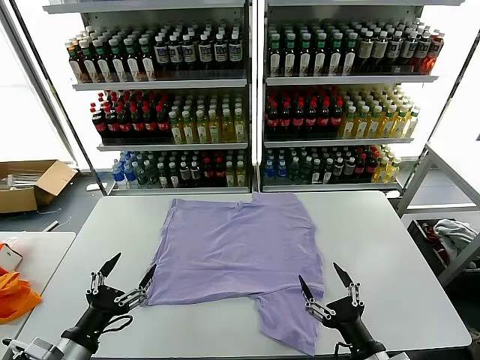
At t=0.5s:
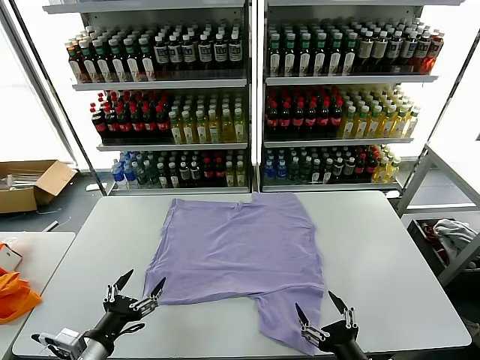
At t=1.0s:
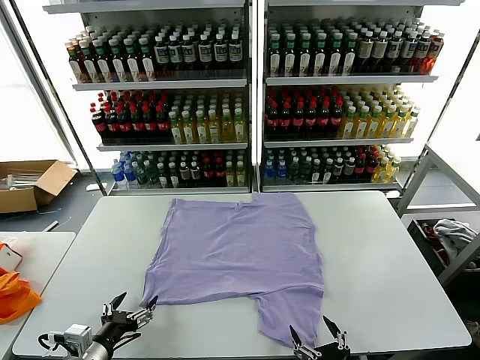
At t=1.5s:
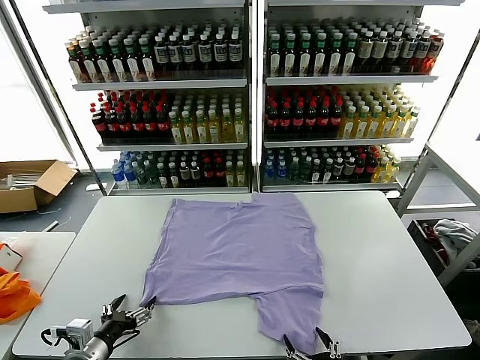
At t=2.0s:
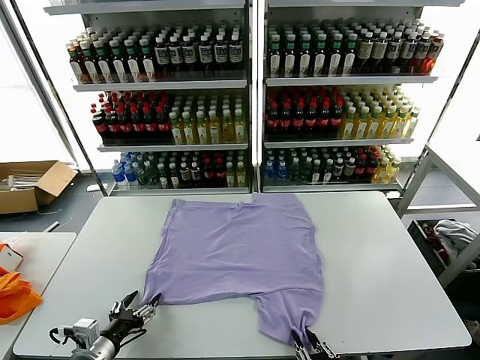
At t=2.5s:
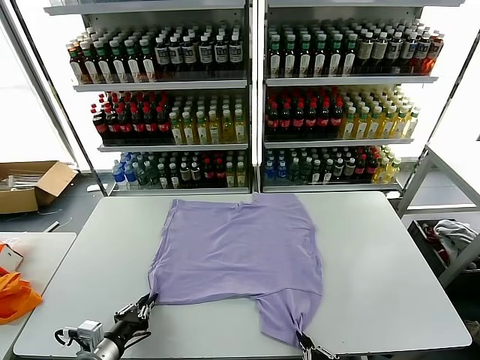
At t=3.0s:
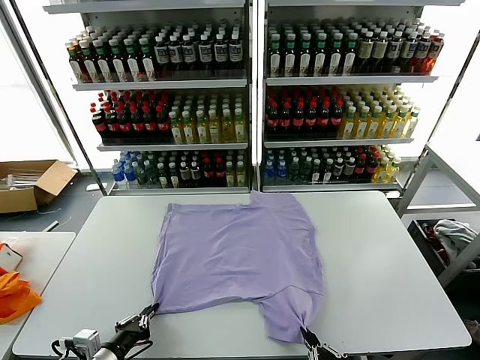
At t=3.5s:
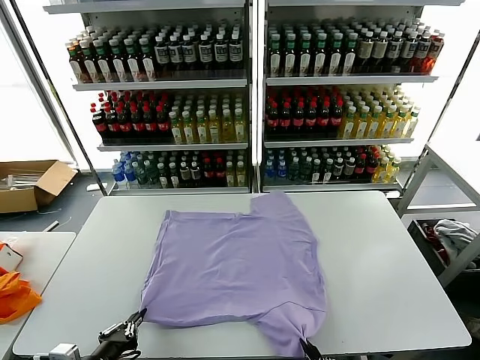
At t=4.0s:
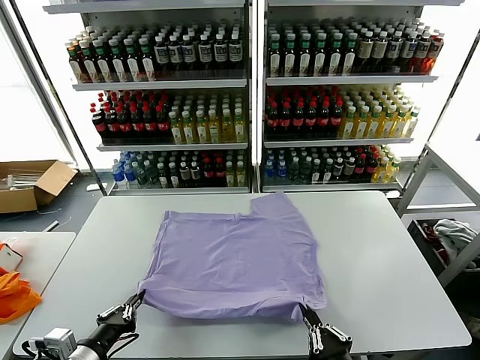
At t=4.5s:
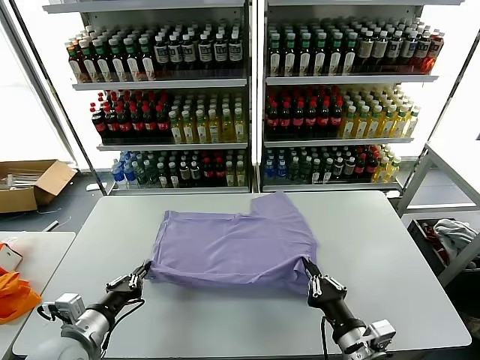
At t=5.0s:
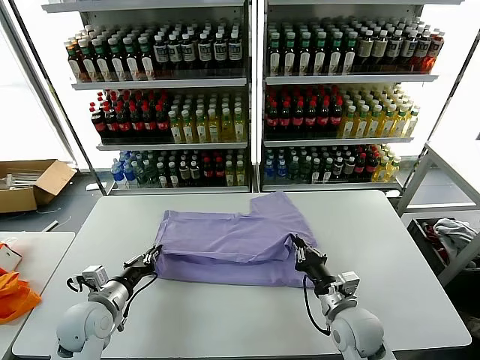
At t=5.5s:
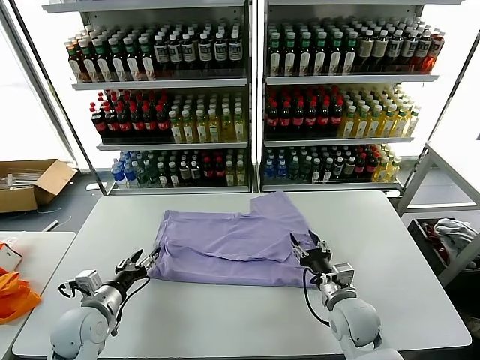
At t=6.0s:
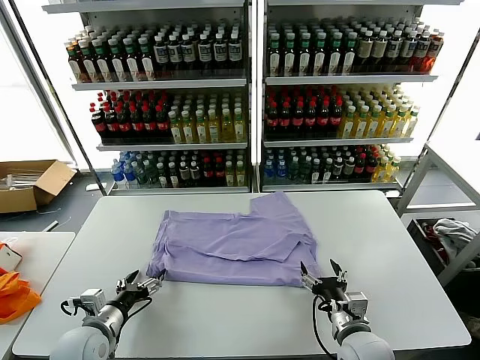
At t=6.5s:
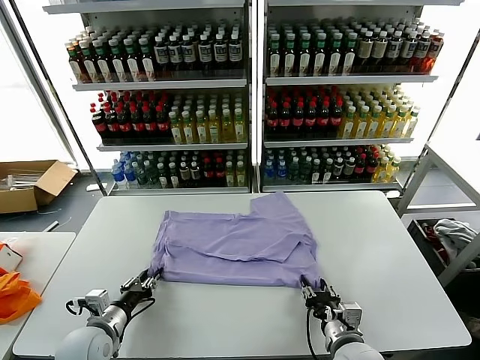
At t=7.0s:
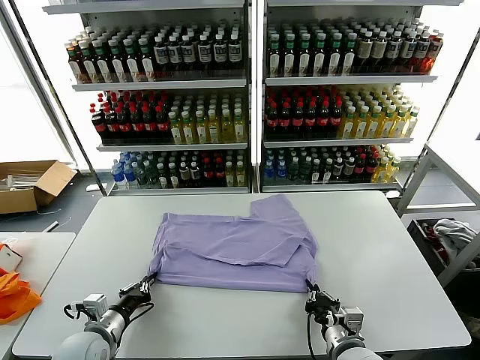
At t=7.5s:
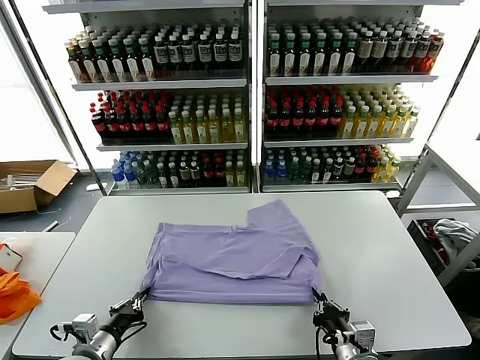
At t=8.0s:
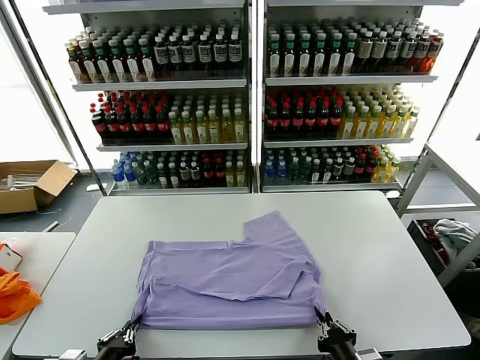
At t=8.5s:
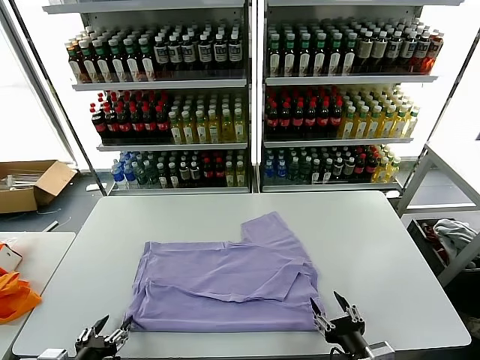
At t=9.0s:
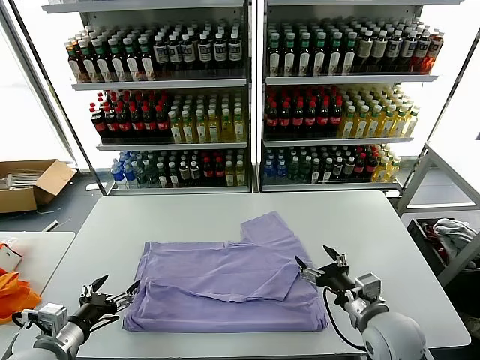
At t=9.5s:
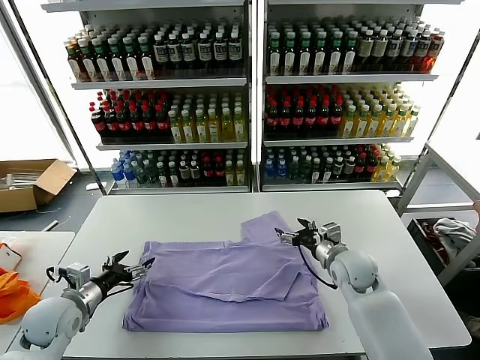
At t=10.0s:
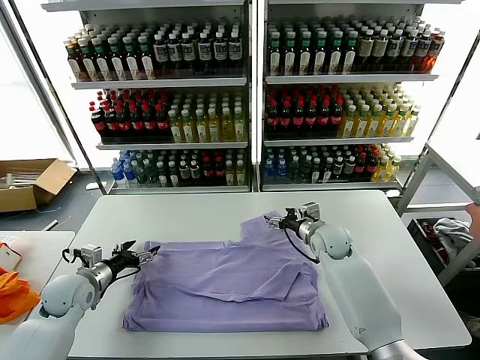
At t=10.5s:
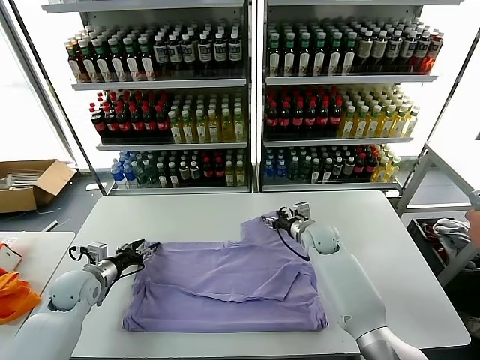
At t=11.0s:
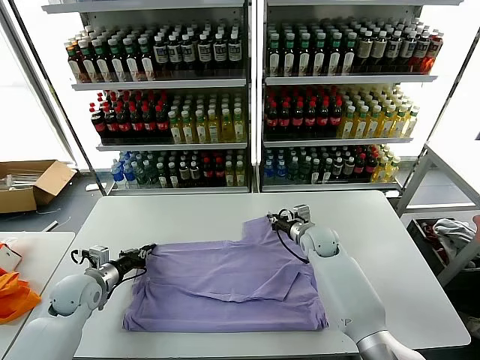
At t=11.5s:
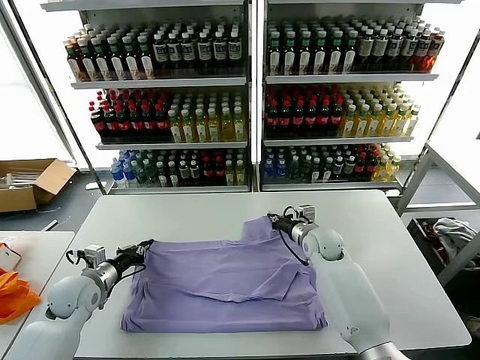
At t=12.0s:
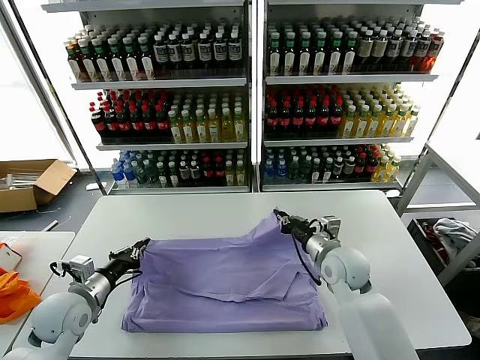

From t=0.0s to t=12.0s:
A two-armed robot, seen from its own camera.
Task of the whole recording: fold and organize the clothes.
Step, from t=0.0s to t=2.5s: use both grippers simultaneously to clamp the lower edge of the clothing fabric.
Step, from t=3.0s to t=5.0s: use both grippers to drag the lower edge of the fabric forward and fold it over the upper edge.
Step, from t=5.5s to t=8.5s: Drag the clothes downward with both gripper.
Step, from t=9.0s to t=11.0s: use both grippers simultaneously to clamp the upper edge of the clothing fabric.
From t=2.0s to t=4.0s: Both grippers travel together upward, approximately 5 cm. The left gripper closes up.
From t=4.0s to t=6.0s: Both grippers move forward and downward, roughly 15 cm. The right gripper opens its fingers; the left gripper opens up.
From t=6.0s to t=8.0s: The two grippers go roughly 10 cm backward. The right gripper closes up; the left gripper closes up.
From t=8.0s to t=10.0s: The right gripper is displaced forward by about 40 cm, and opens its fingers; the left gripper is displaced forward by some 25 cm, and opens its fingers.
From t=10.0s to t=12.0s: The right gripper goes some 10 cm backward, and closes its fingers, while the left gripper goes roughly 5 cm backward, and closes.

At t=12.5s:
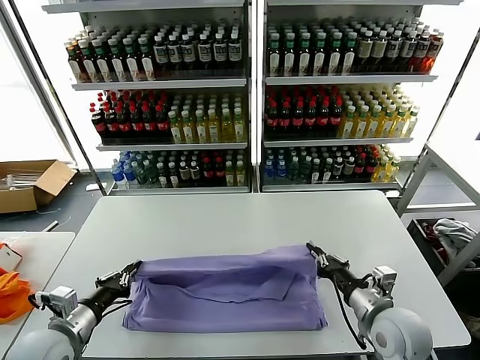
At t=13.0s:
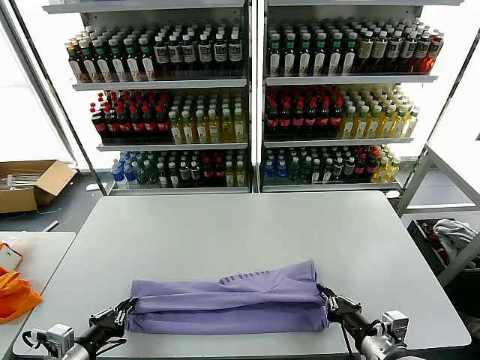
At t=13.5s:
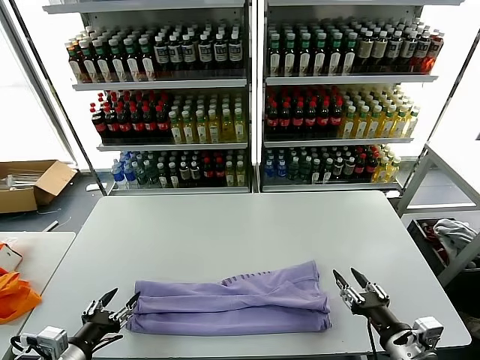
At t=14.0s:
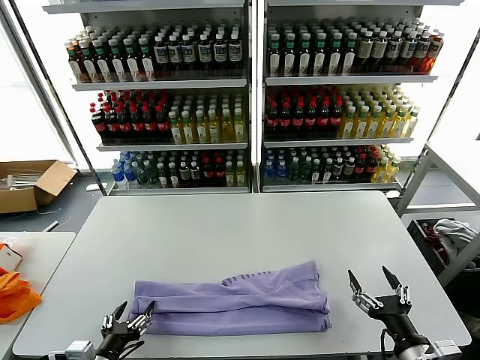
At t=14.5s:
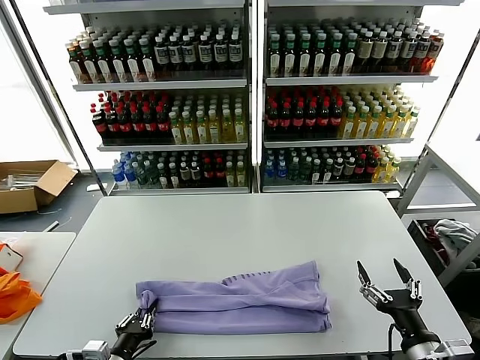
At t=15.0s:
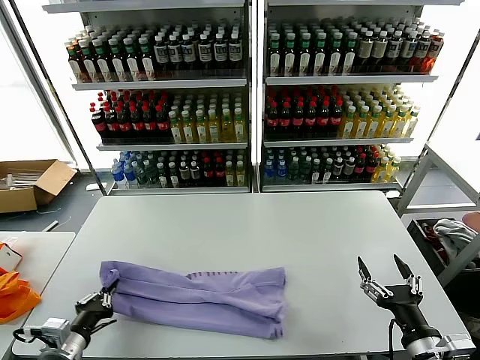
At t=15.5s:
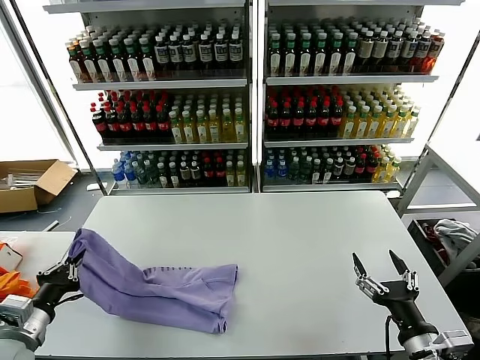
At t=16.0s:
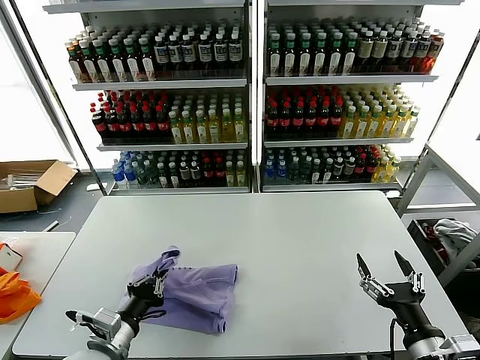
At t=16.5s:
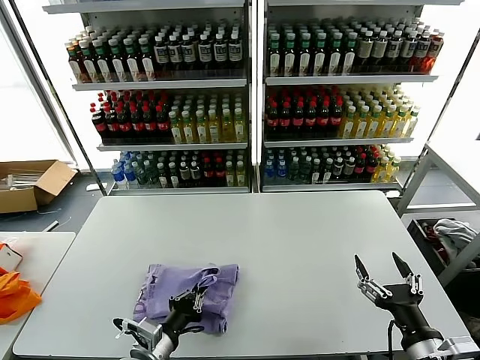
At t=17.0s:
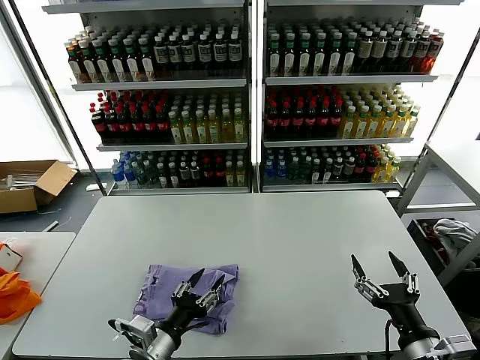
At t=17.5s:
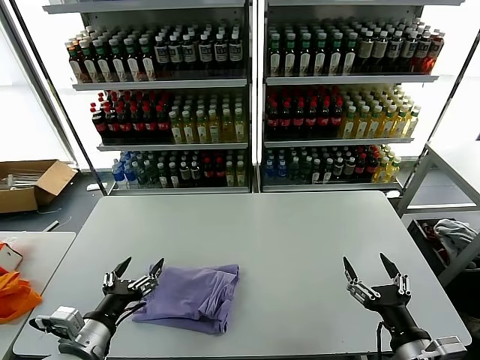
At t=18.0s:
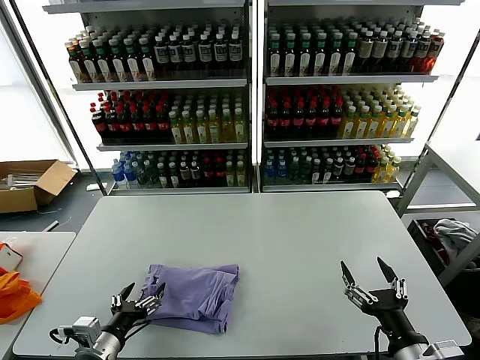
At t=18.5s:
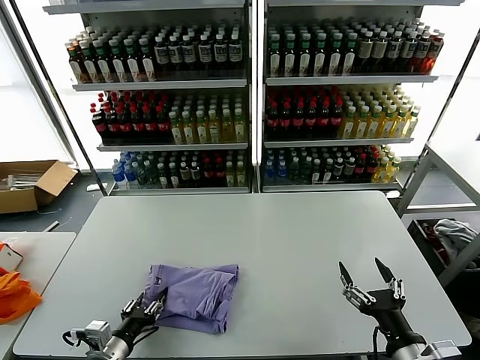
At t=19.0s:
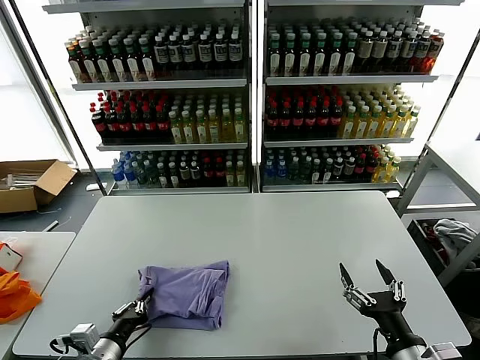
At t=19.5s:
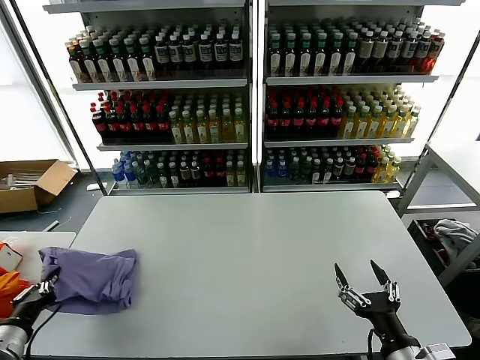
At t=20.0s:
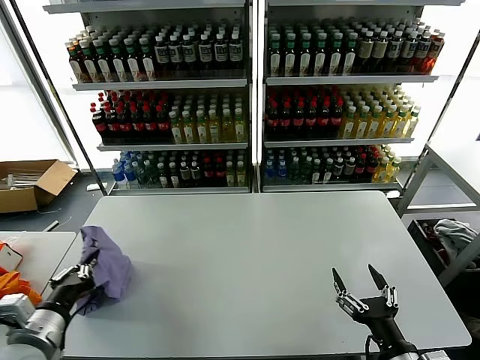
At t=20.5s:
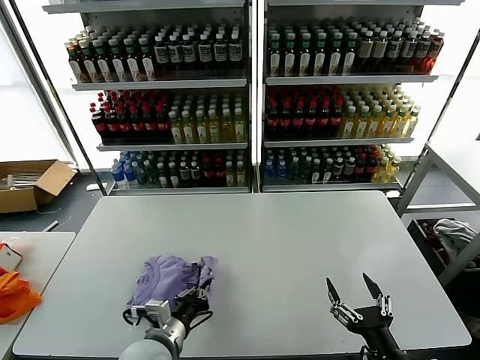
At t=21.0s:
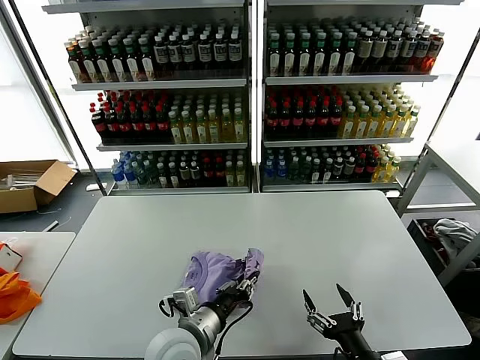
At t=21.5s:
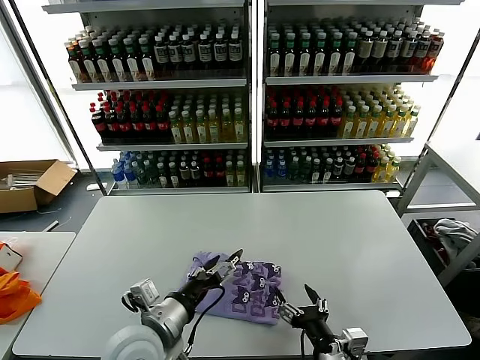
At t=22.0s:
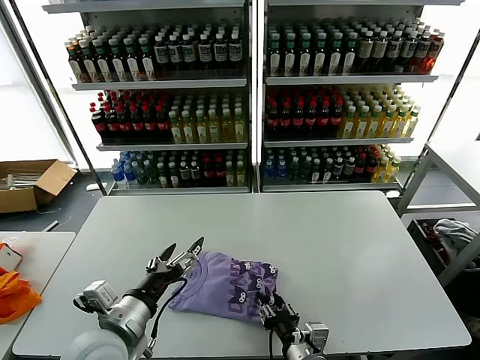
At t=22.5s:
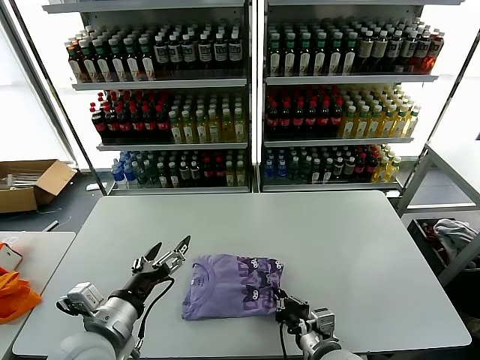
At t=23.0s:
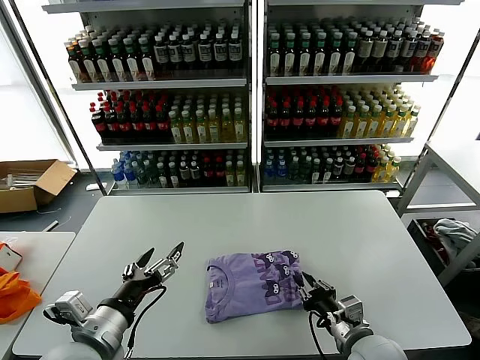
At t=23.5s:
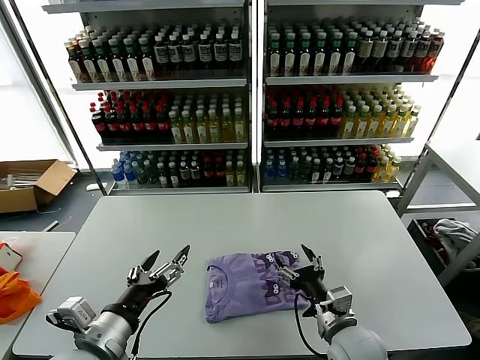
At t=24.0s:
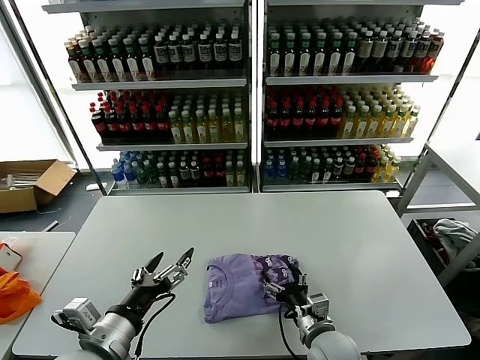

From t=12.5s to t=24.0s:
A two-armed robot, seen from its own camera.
Task of the whole recording: fold and organize the clothes.
Step, from t=13.5s to t=14.5s: use the left gripper to clamp the left edge of the fabric.
Step, from t=15.0s to t=17.0s: use the left gripper to drag the left edge of the fabric to the left and folds it over the right edge.
Step, from t=17.5s to t=21.0s: Flip the folded clothes over with left gripper.
From t=12.5s to t=14.5s: The left gripper heads downward, to the right and backward, covering approximately 15 cm, and opens and closes again; the right gripper moves backward, roughly 10 cm, and opens its fingers.
From t=14.5s to t=16.5s: The left gripper travels to the left and back again, about 15 cm each way.
From t=16.5s to t=18.5s: The left gripper heads to the left, covering some 10 cm, and opens its fingers.
From t=18.5s to t=20.0s: The left gripper heads upward and to the left, covering approximately 15 cm, and closes its fingers.
From t=20.0s to t=22.0s: The left gripper travels to the right by roughly 15 cm, and opens its fingers. The right gripper travels to the left, downward and forward by some 15 cm, and closes up.
From t=22.0s to t=24.0s: The right gripper heads forward, covering some 5 cm, and opens its fingers.

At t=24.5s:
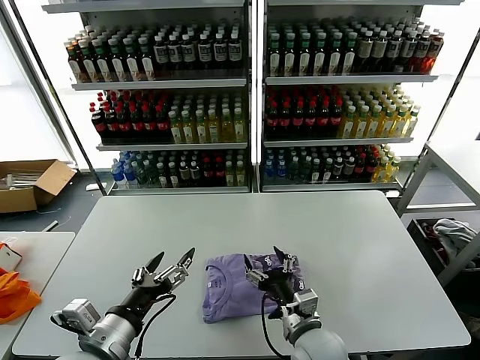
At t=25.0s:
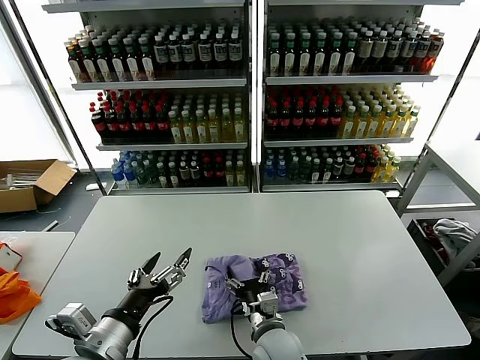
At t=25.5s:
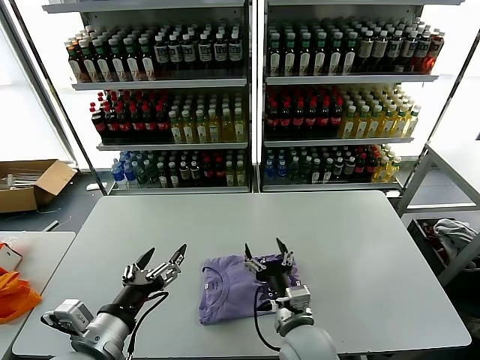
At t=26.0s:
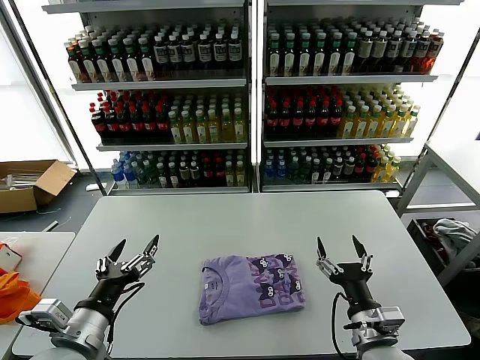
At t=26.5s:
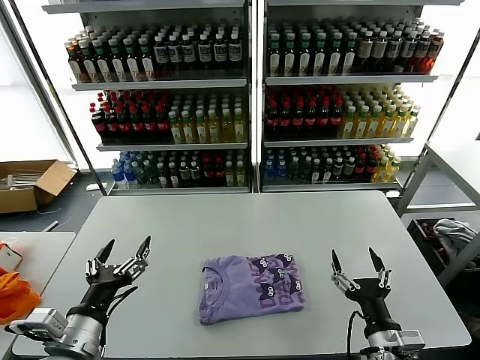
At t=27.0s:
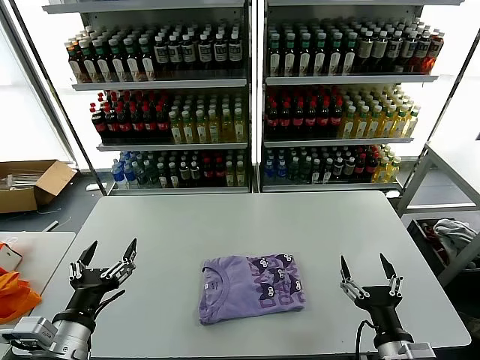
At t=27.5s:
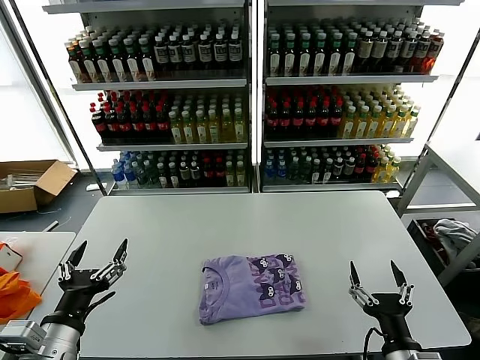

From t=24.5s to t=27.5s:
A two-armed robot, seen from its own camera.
Task of the whole recording: fold and organize the clothes.
From t=24.5s to t=26.0s: The right gripper travels to the right by some 10 cm.
From t=26.0s to t=27.5s: The right gripper travels backward by approximately 5 cm.
